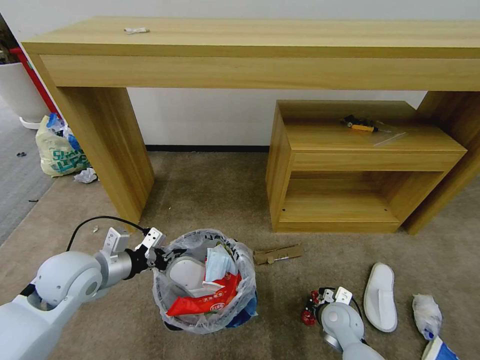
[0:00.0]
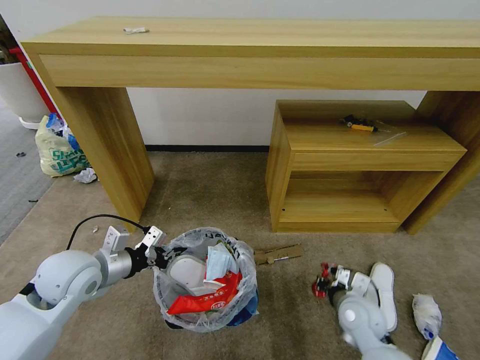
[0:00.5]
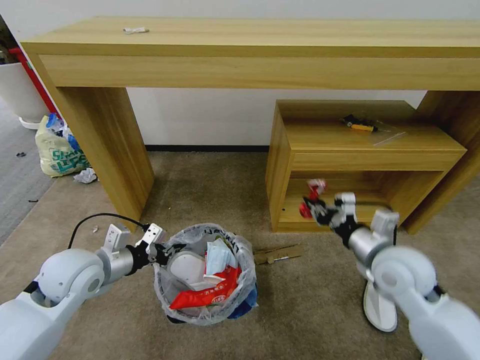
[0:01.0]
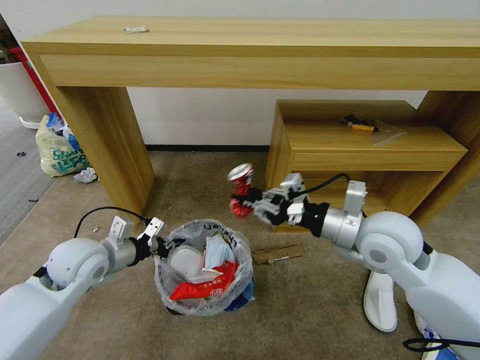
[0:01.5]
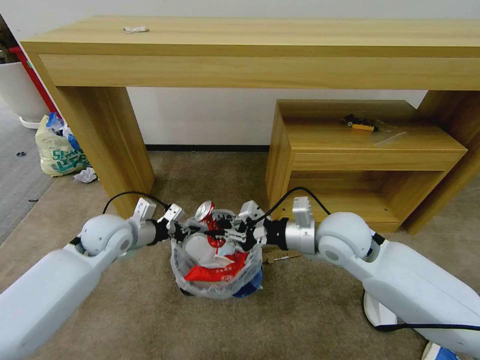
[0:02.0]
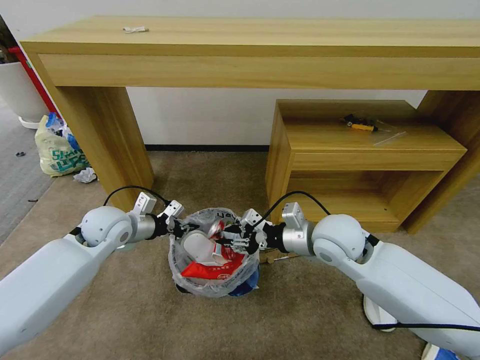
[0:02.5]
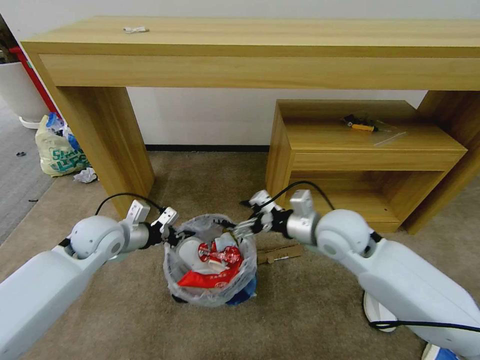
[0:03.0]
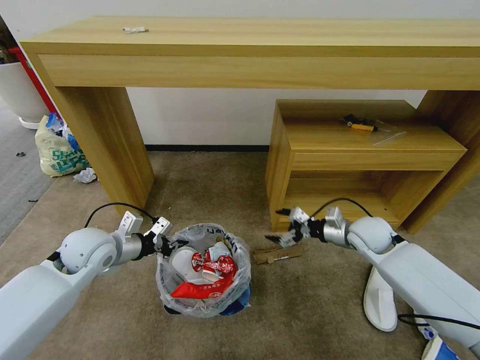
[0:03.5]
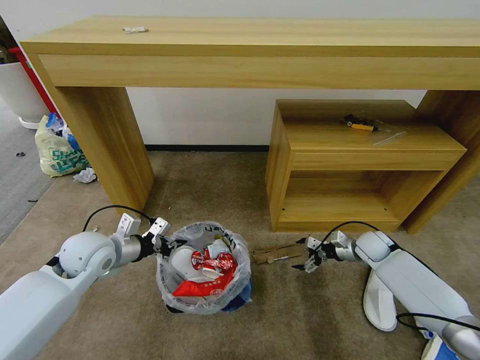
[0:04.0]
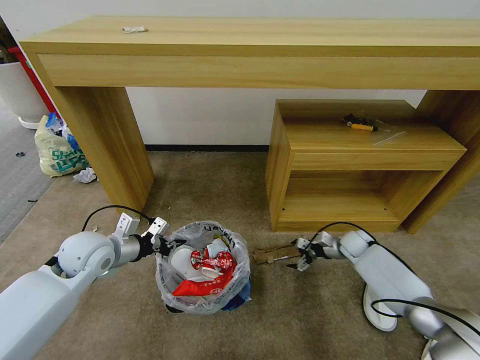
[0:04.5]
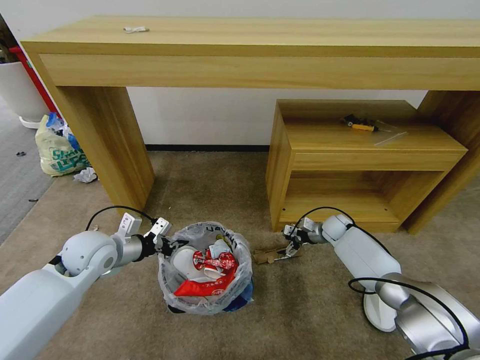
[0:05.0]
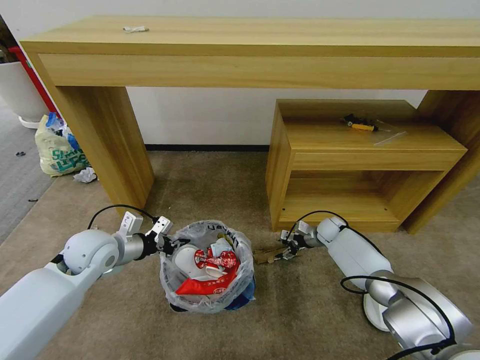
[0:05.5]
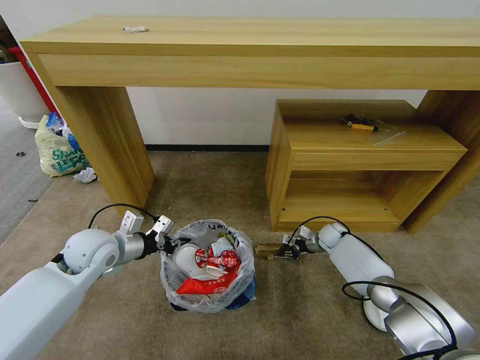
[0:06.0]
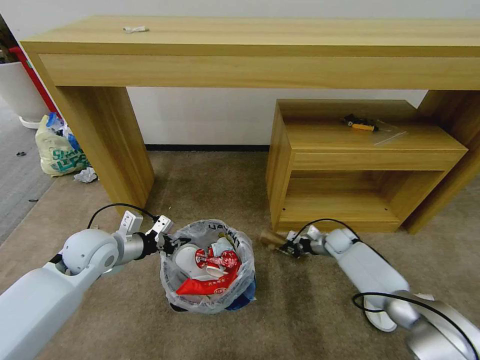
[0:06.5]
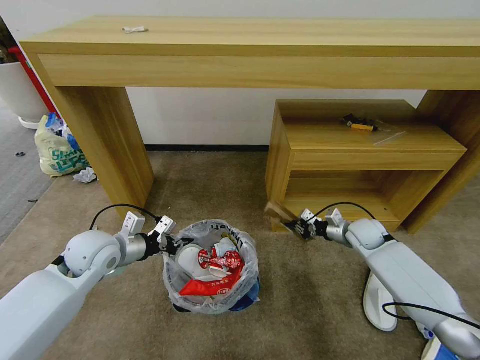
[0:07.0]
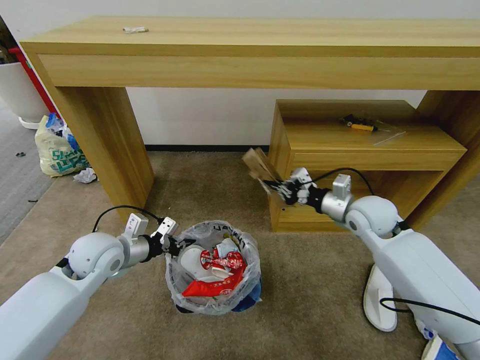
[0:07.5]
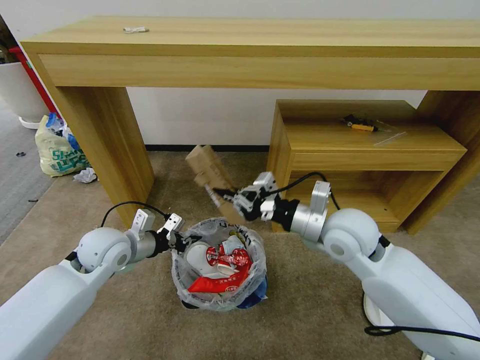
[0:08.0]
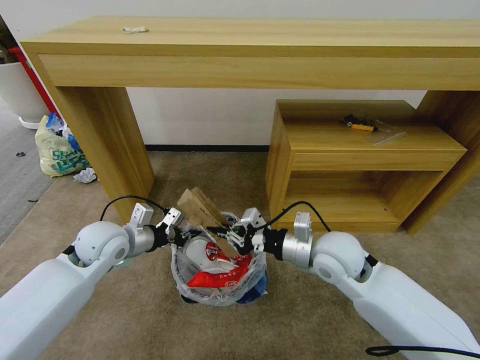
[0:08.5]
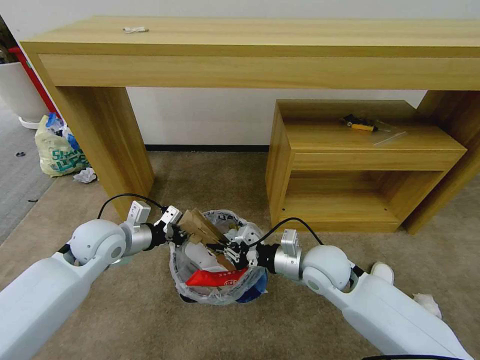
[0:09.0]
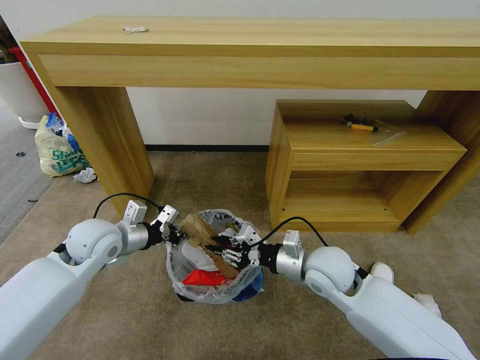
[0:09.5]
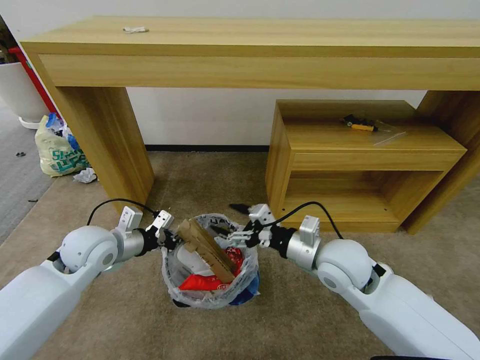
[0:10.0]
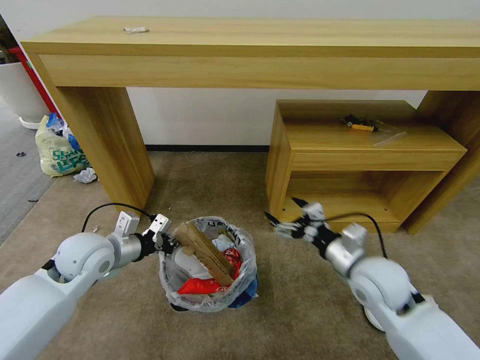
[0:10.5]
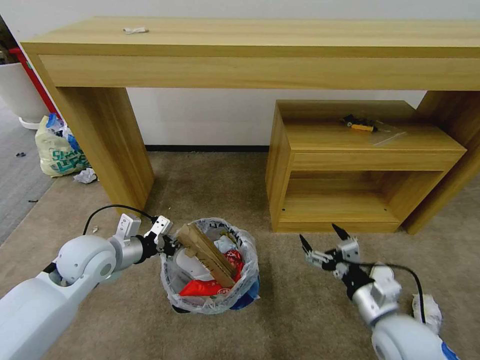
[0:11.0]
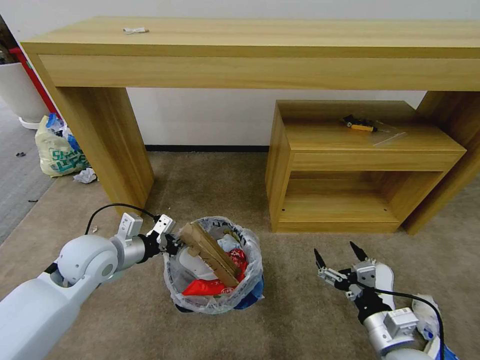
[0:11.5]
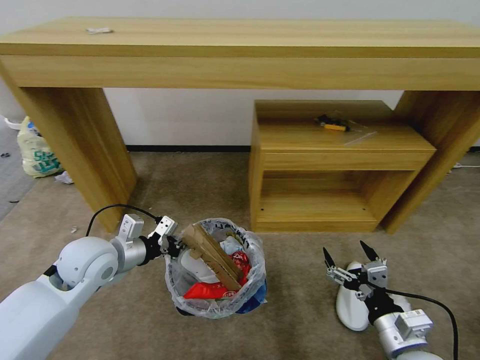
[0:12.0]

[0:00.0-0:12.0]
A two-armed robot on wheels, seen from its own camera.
Task of the whole recording: Pick up the trash bin and place the garbage on the floor into it.
0:00.0 to 0:02.0: The right gripper travels upward by approximately 30 cm; the left gripper moves forward, roughly 10 cm.
0:02.0 to 0:04.0: The right gripper is displaced downward, to the right and forward by some 30 cm, and opens its fingers.
0:04.0 to 0:06.0: The right gripper shifts some 10 cm to the left, forward and downward, and closes.
0:06.0 to 0:08.0: The right gripper moves upward, backward and to the left, roughly 35 cm.
0:08.0 to 0:10.0: The right gripper is displaced downward by approximately 5 cm, and opens.
0:10.0 to 0:12.0: The right gripper goes approximately 20 cm backward, to the right and downward.

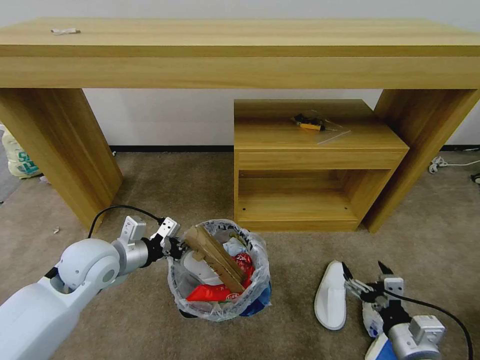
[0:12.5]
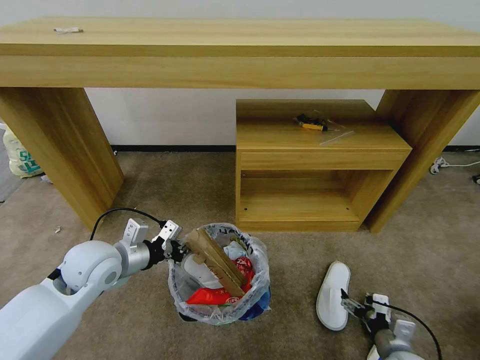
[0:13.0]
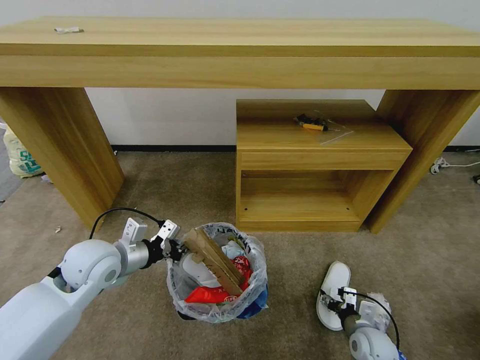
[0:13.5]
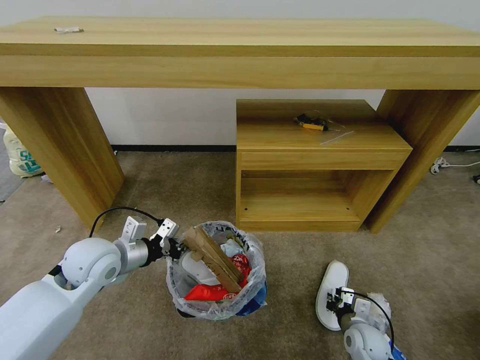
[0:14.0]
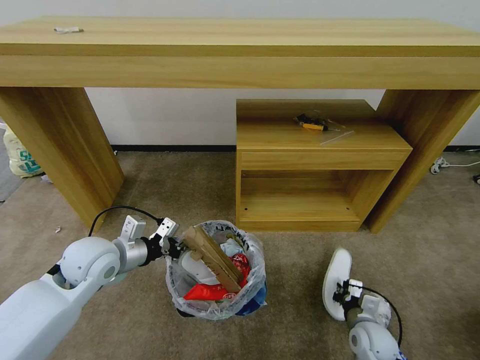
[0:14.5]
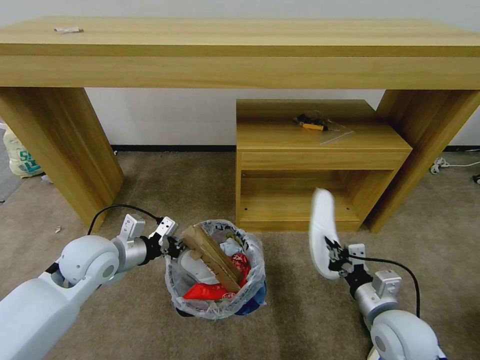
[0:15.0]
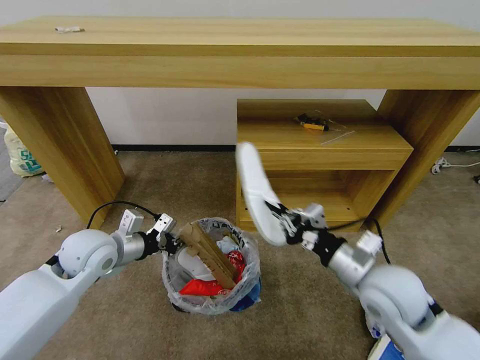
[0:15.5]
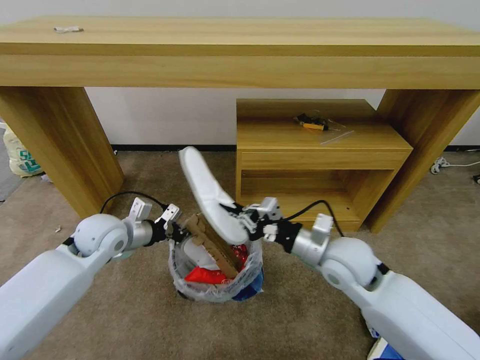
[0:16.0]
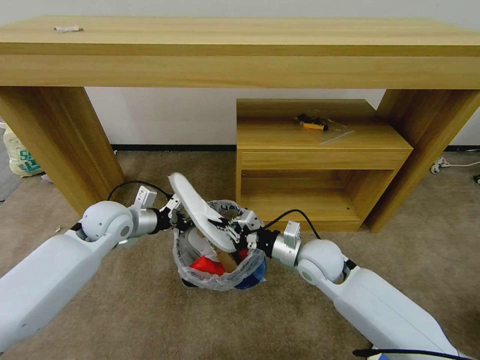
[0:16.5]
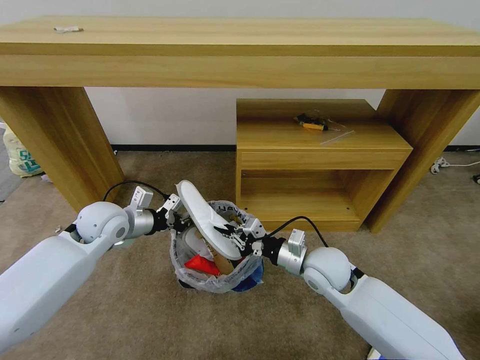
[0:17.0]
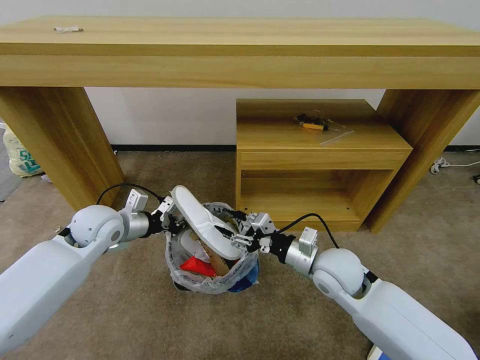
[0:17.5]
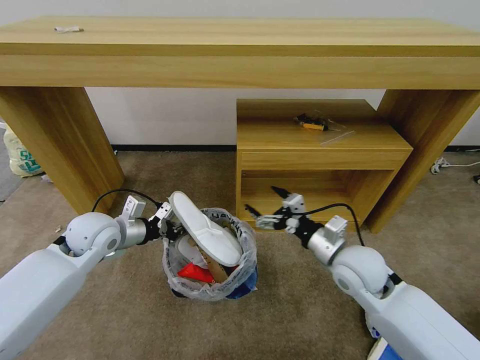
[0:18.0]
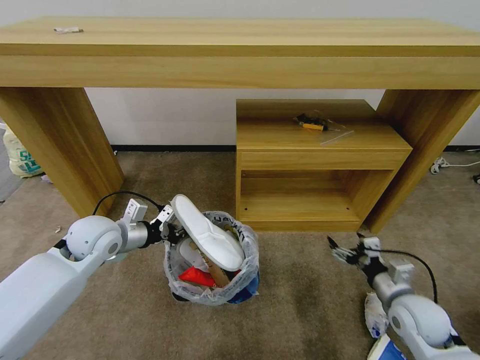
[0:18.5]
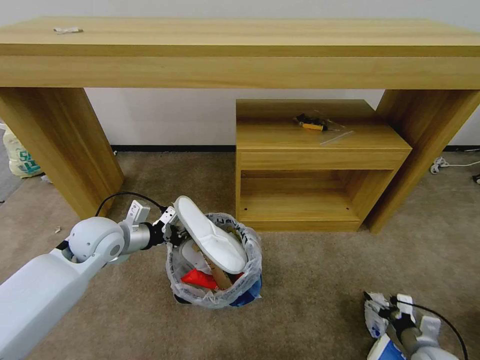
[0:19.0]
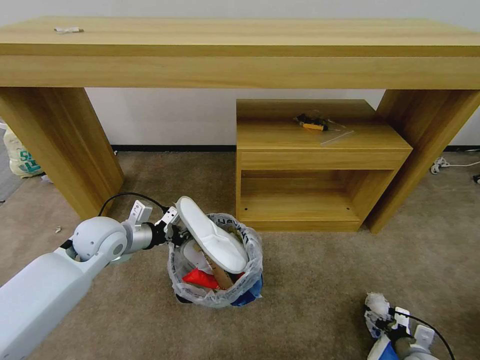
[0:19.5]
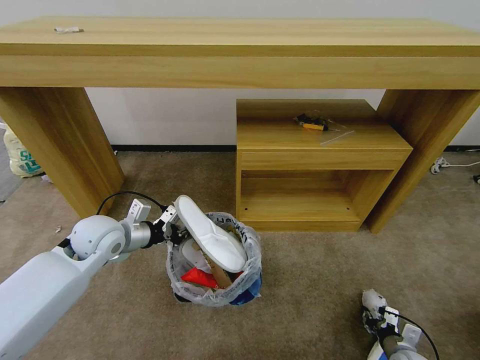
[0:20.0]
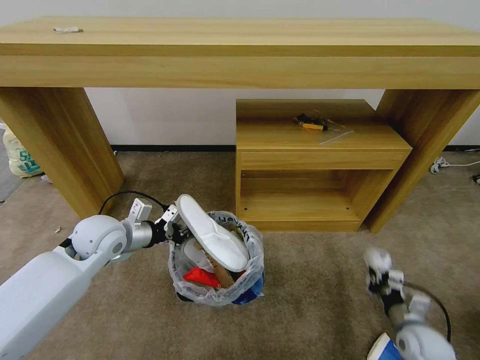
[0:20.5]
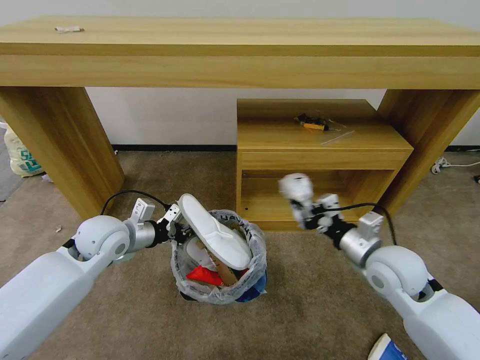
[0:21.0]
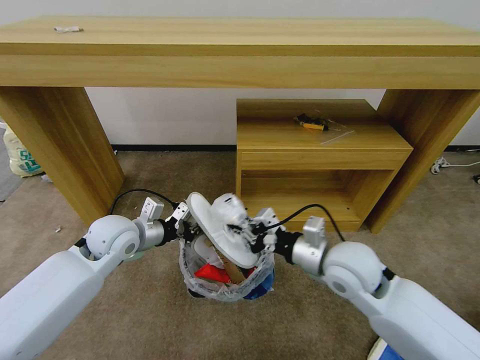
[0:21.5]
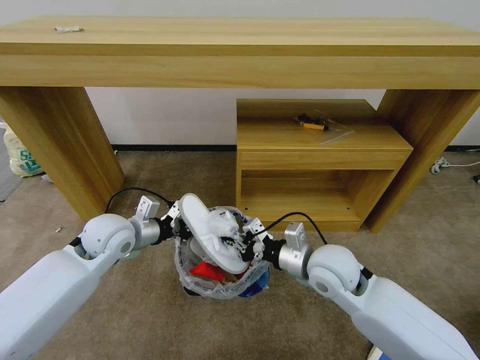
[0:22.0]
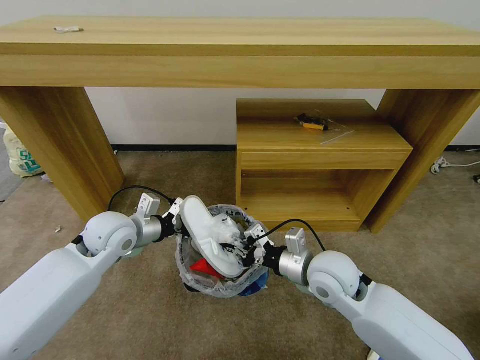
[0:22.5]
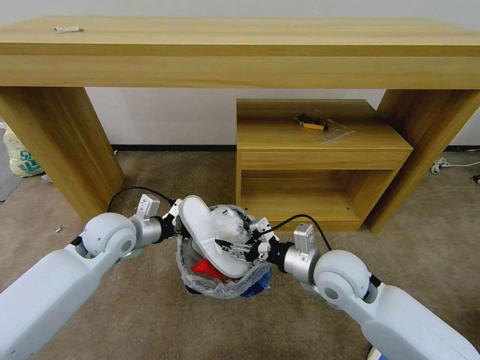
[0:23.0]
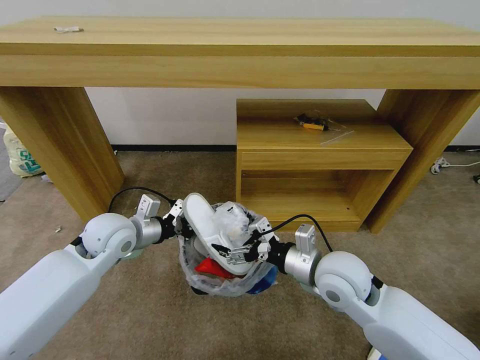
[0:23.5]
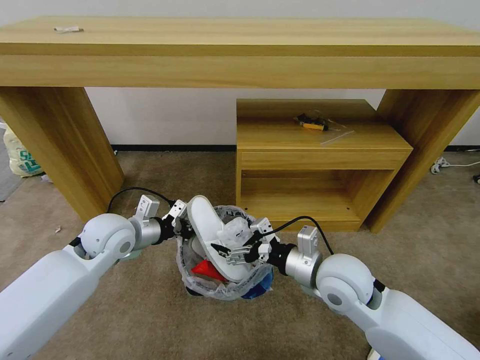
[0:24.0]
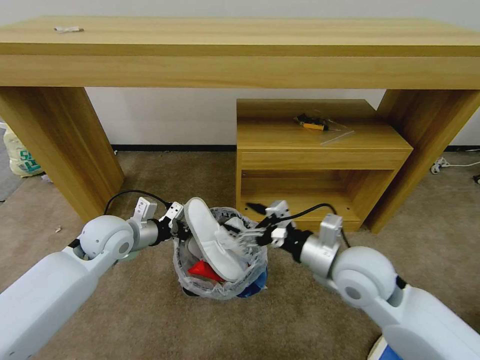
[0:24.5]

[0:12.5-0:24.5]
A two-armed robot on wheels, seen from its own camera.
Task of the whole recording: Pick up the trash bin and place the garbage on the floor into it.
0:12.5 to 0:14.5: The right gripper is displaced downward and forward by some 15 cm, and closes.
0:14.5 to 0:16.5: The left gripper is displaced forward by some 10 cm; the right gripper is displaced upward, to the left and forward by roughly 30 cm.
0:16.5 to 0:18.5: The right gripper is displaced to the right and backward by approximately 25 cm, and opens up.
0:18.5 to 0:20.5: The right gripper goes downward and returns, some 20 cm each way, and closes.
0:20.5 to 0:22.5: The right gripper heads to the left and upward, covering about 30 cm.
0:22.5 to 0:24.5: The right gripper heads upward, covering about 5 cm, and opens its fingers.

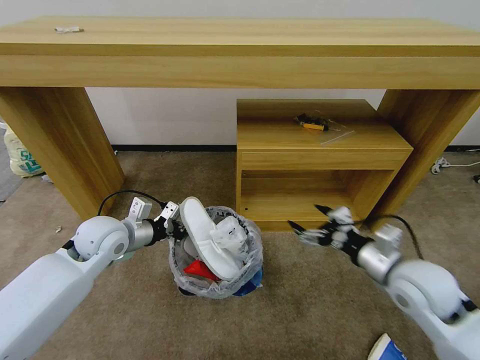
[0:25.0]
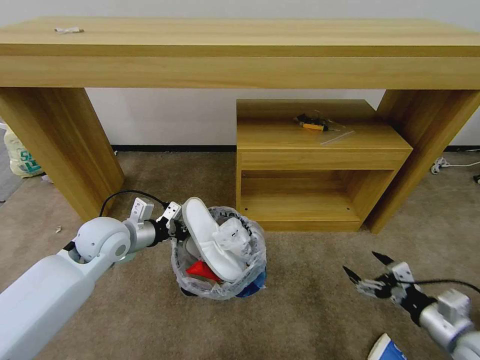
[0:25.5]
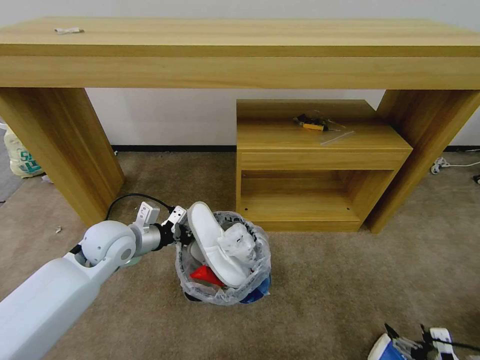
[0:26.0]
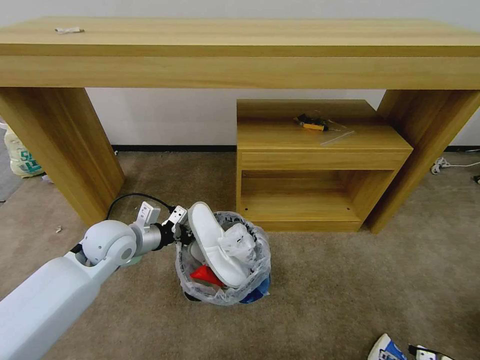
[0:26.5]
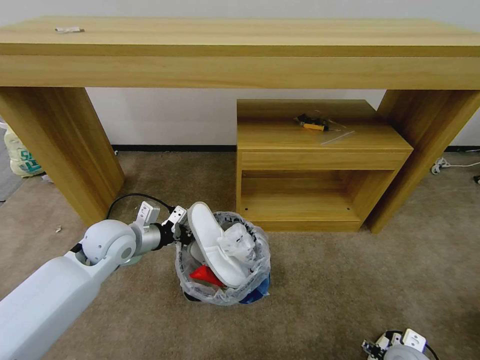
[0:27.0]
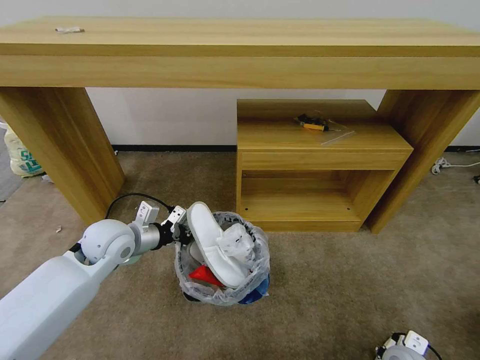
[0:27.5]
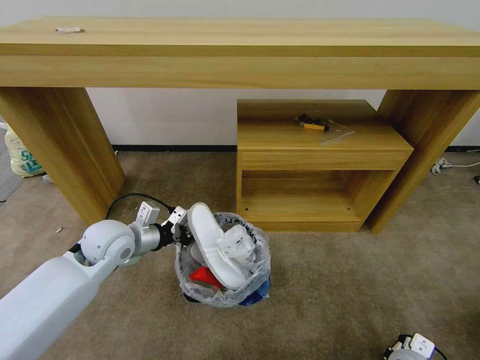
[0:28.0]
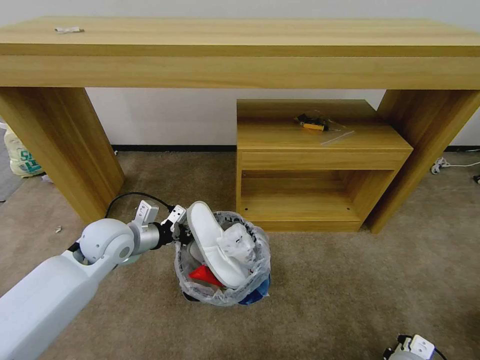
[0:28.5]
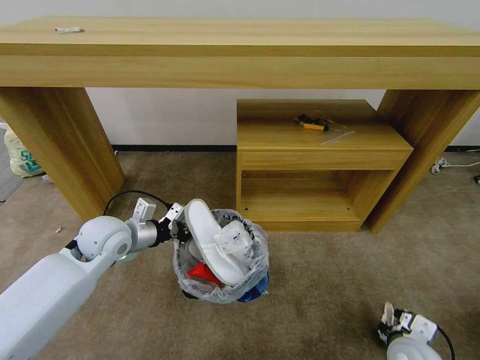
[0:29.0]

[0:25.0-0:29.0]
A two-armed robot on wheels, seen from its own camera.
Task of the whole recording: Pick up the trash bin and place the garbage on the floor into it.
0:25.0 to 0:27.0: The right gripper heads downward and backward, covering about 25 cm.
0:27.0 to 0:29.0: The right gripper closes.
